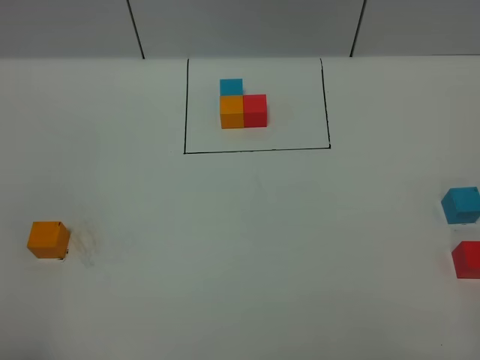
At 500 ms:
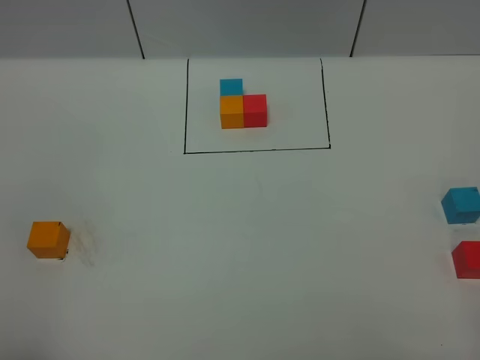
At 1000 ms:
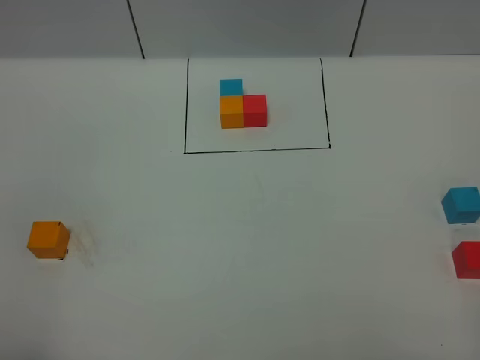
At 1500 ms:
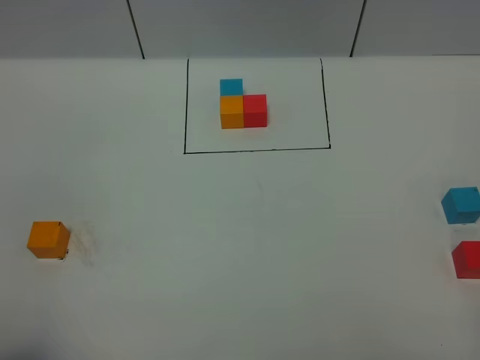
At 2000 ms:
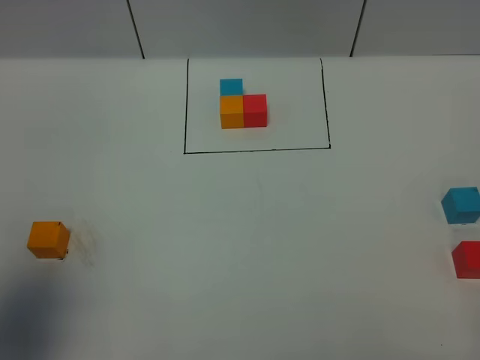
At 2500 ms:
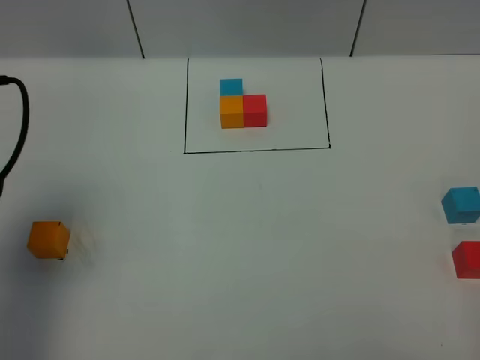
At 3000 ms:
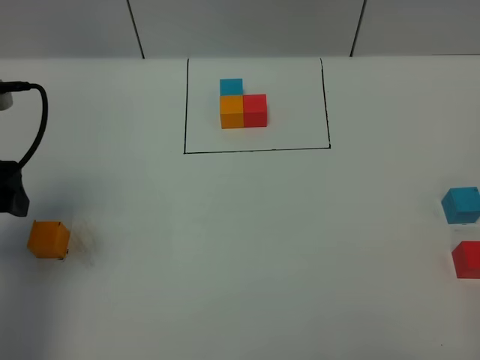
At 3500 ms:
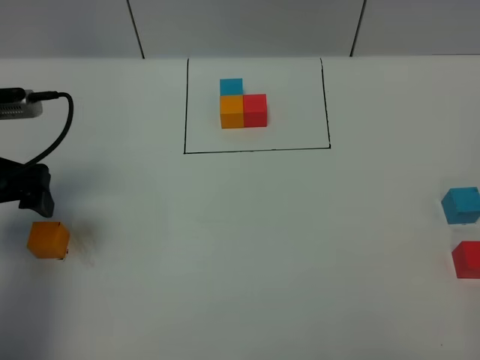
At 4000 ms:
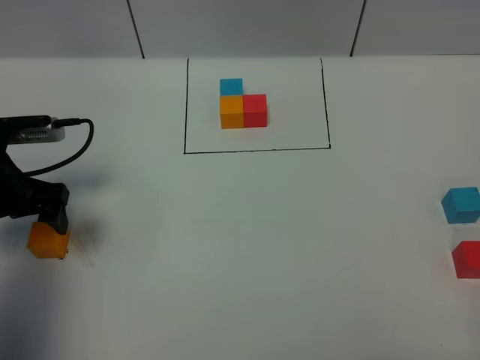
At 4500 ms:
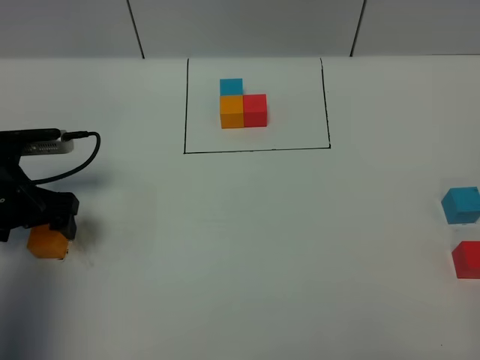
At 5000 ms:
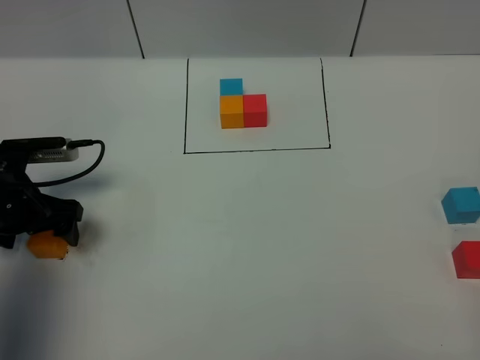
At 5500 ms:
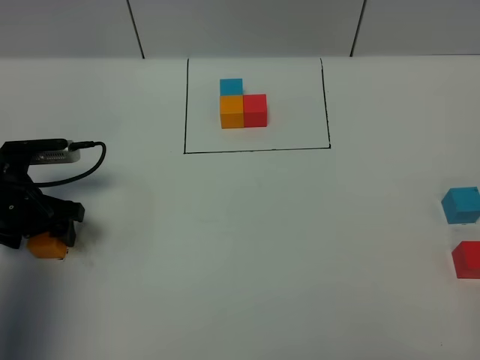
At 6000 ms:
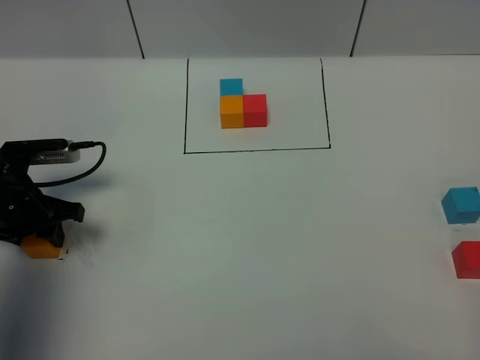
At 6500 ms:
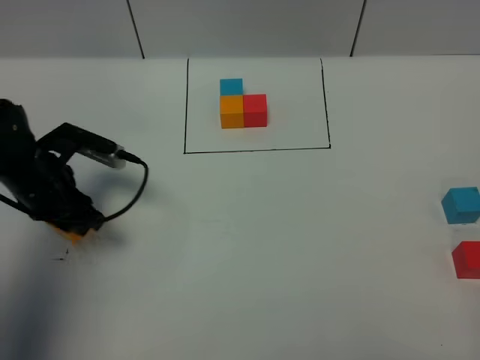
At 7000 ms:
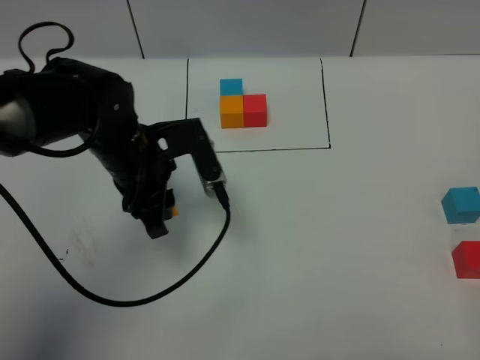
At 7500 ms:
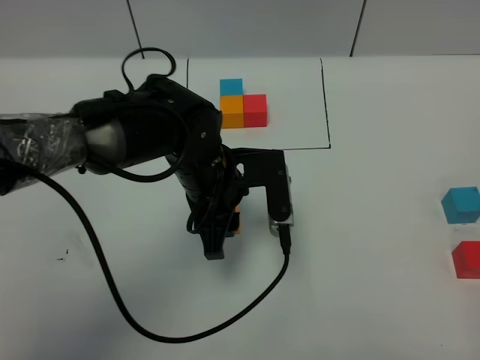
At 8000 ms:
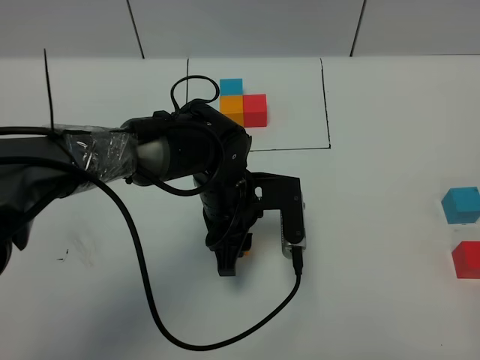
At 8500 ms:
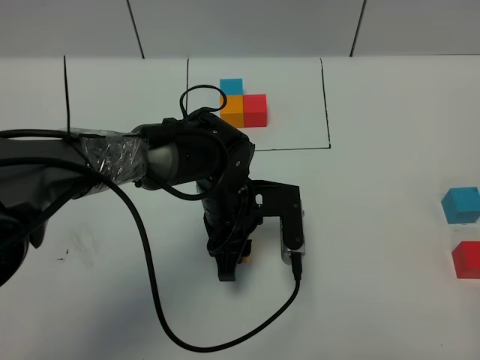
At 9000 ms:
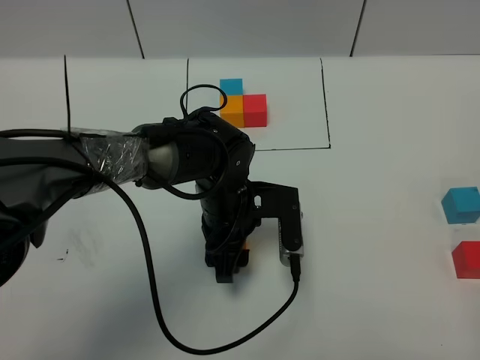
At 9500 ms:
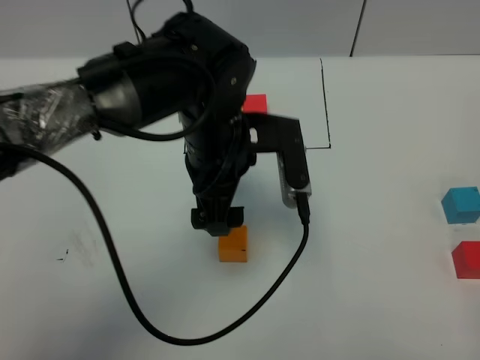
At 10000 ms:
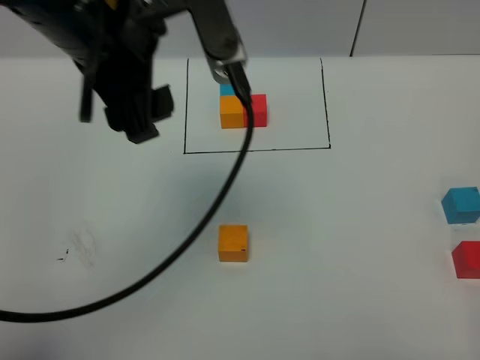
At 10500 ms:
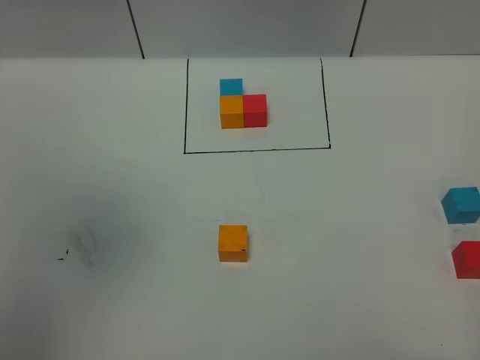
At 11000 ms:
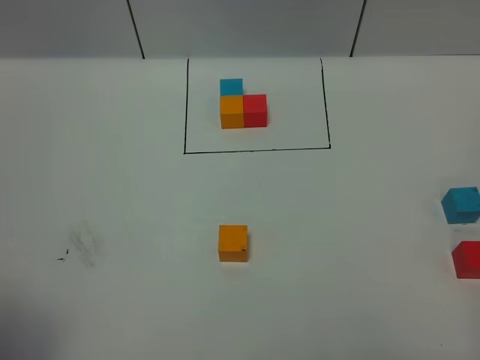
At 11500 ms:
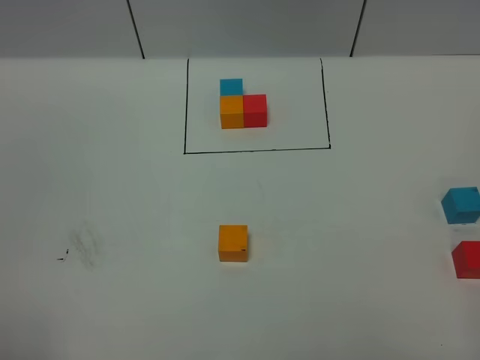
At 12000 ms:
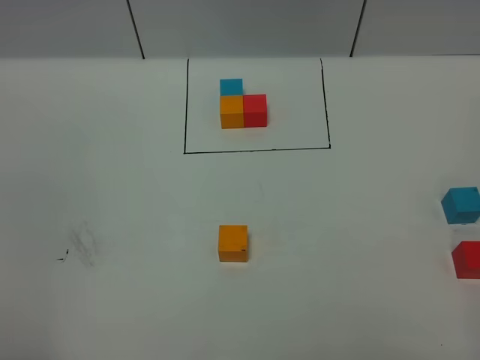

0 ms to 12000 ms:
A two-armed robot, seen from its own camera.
Task of the whole recording: According to the building block template in front, assemble the scattered blocks together.
Step, 2500 ms to 9000 ms: Put the orange cube in the center of the table.
0 ms to 2000 ms: The left gripper is displaced forward by some 10 cm.
2000 ms to 4000 ms: The left gripper travels forward and downward by approximately 25 cm, and opens.
4000 ms to 6000 ms: The left gripper goes about 5 cm downward, and closes its fingers.
6000 ms to 8000 ms: The left gripper is displaced to the right by roughly 30 cm.
8000 ms to 10000 ms: The left gripper shifts roughly 30 cm upward.
10000 ms to 12000 ms: The left gripper heads backward and to the left, covering approximately 35 cm.

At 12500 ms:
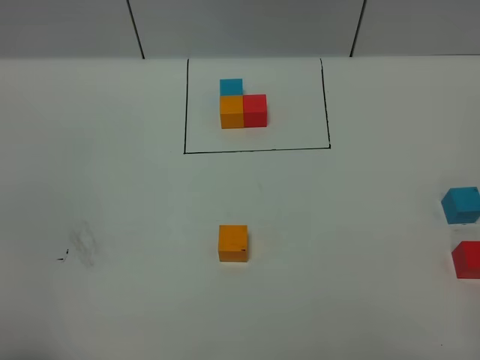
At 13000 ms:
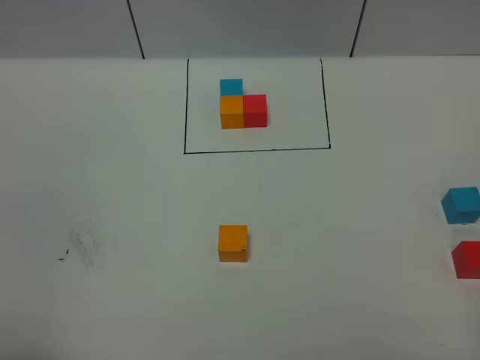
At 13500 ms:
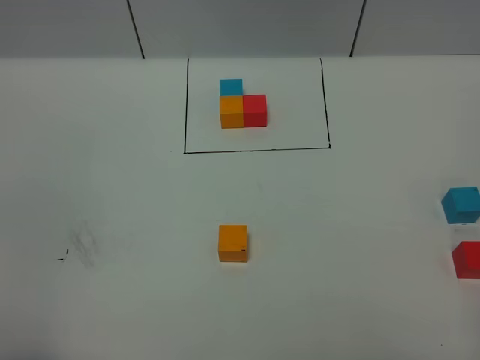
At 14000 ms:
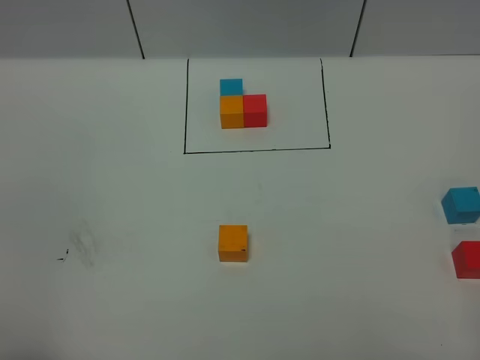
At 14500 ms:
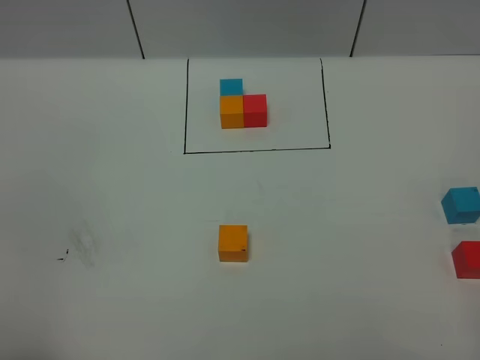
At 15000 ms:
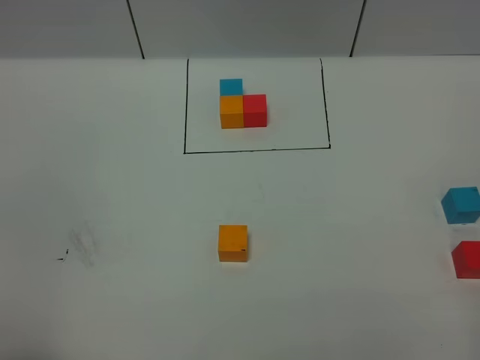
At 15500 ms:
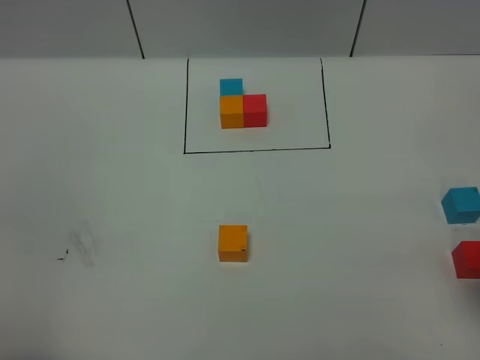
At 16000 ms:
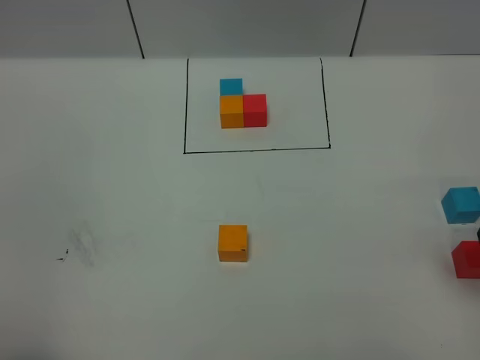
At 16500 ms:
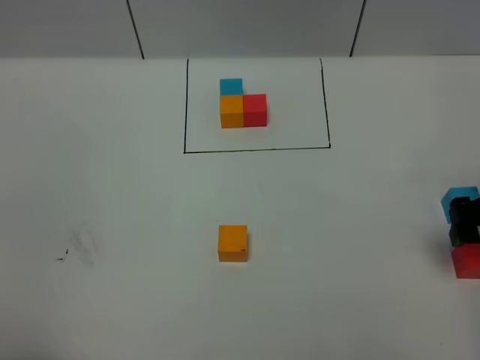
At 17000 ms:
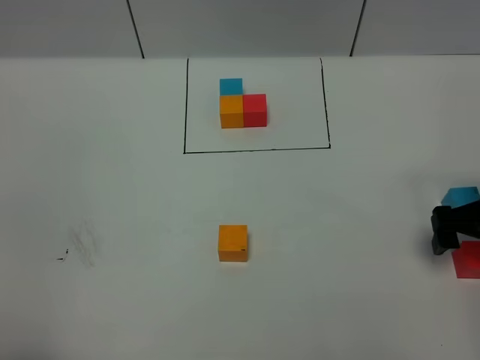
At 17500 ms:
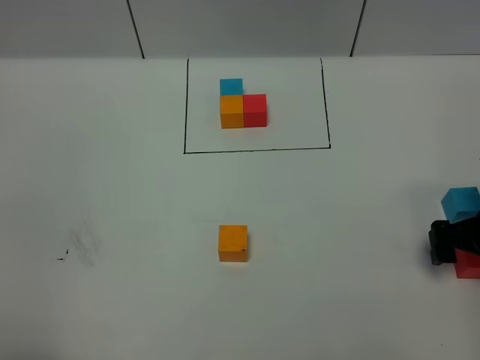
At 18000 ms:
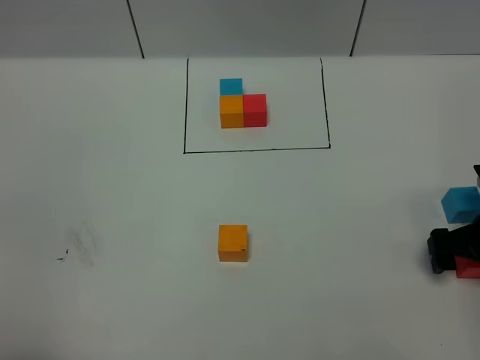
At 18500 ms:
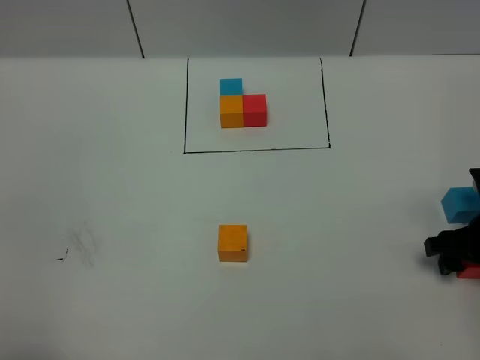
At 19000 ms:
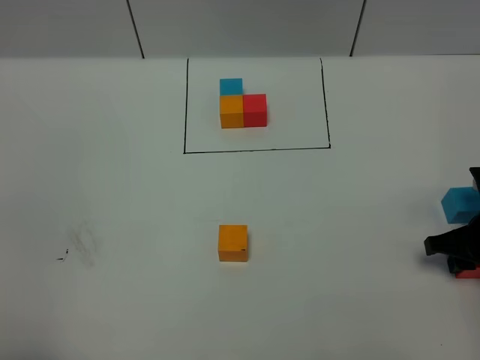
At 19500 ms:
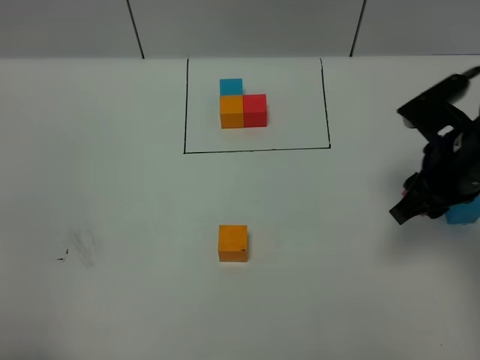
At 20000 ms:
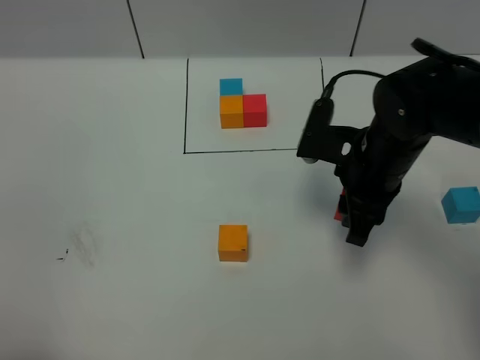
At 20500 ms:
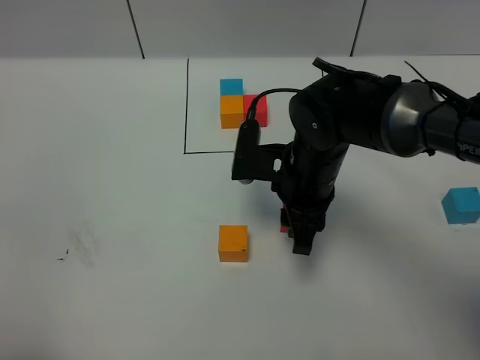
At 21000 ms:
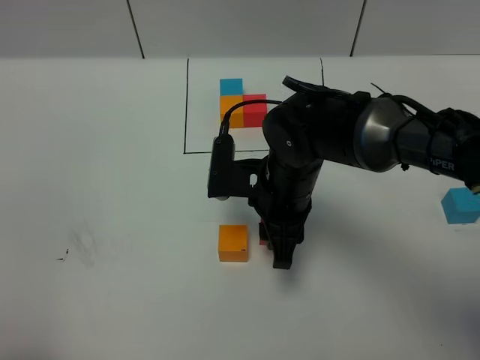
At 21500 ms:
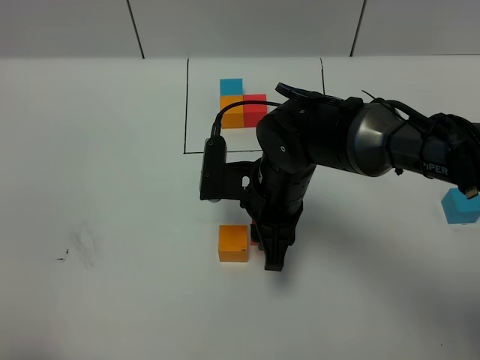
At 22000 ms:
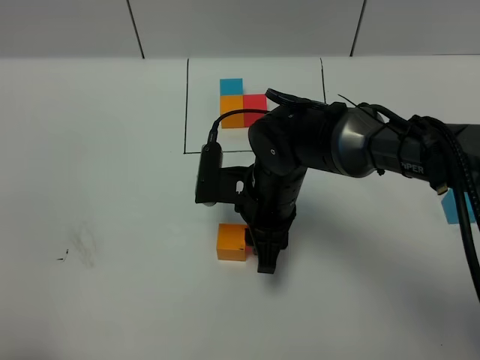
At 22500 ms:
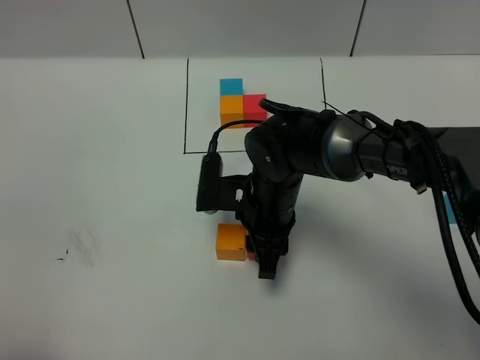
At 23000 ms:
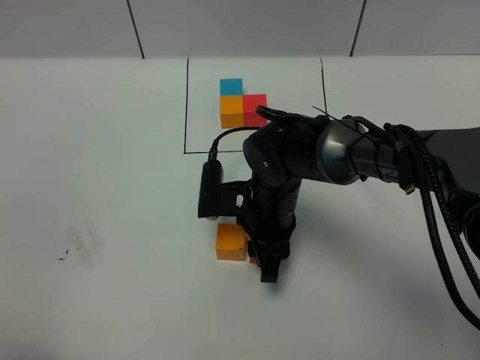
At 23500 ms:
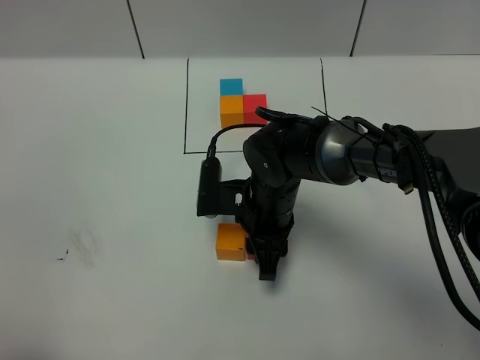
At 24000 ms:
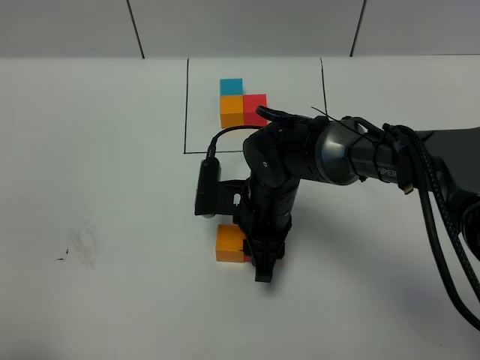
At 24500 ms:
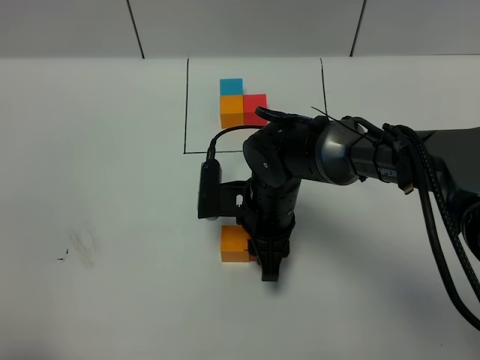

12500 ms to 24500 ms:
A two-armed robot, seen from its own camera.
Task of the whole recording: According to the building block template in front, assemble the scattered blocks together.
12500 ms to 14500 ms: Neither gripper changes place.
14500 ms to 16500 ms: The right gripper is displaced forward by some 25 cm, and opens.
16500 ms to 18500 ms: The right gripper shifts about 10 cm downward, and closes.
18500 ms to 20500 ms: The right gripper is displaced to the left by approximately 25 cm.
20500 ms to 22500 ms: The right gripper shifts by some 5 cm.
22500 ms to 24500 ms: Both grippers stay put.

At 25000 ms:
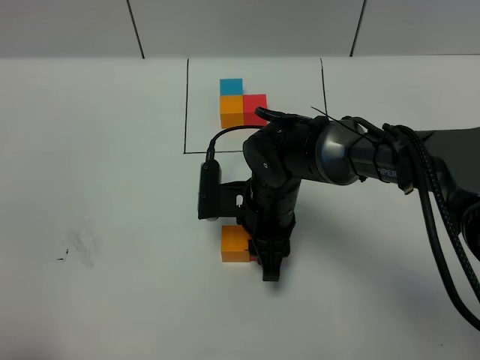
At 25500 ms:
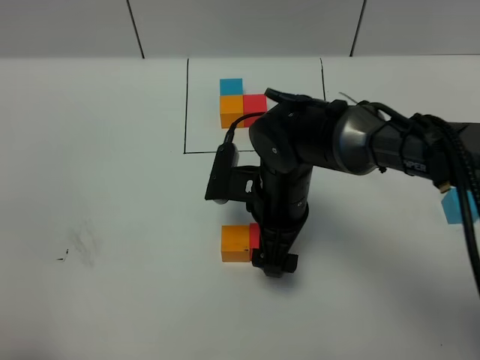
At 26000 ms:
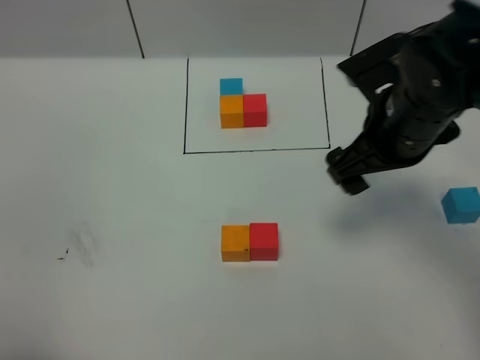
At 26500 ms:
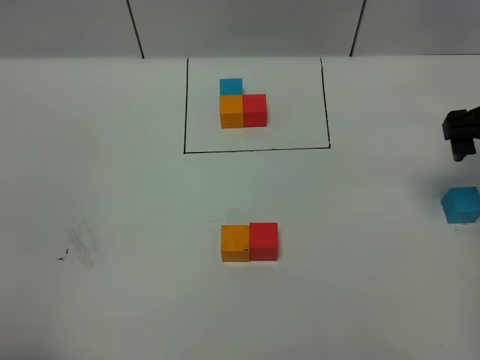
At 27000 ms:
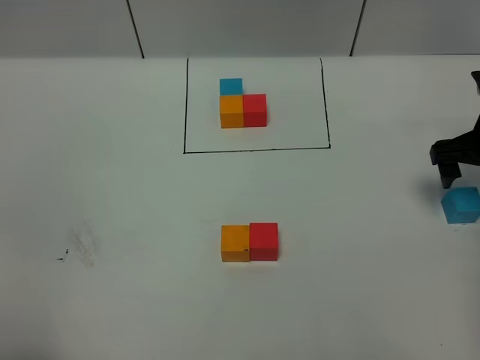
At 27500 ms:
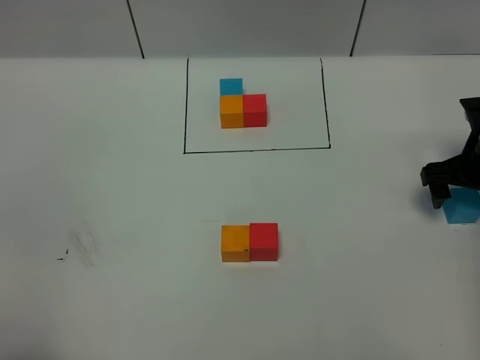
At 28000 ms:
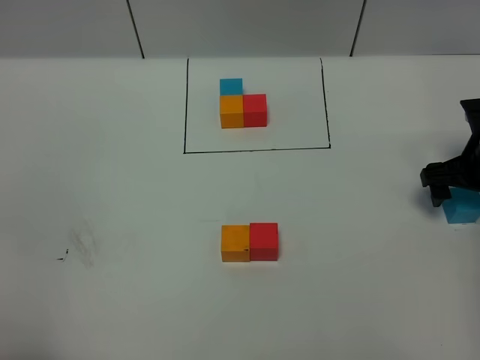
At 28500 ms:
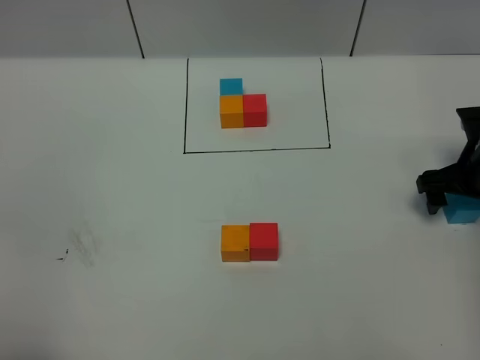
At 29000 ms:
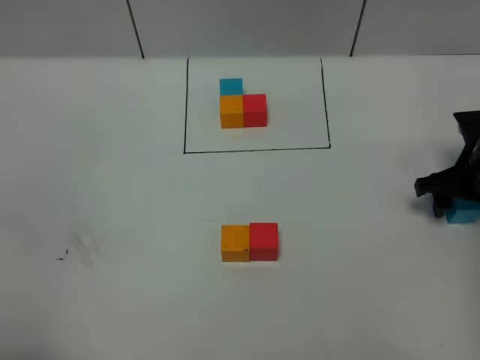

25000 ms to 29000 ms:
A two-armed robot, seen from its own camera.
Task of the whole recording: According to the building block template in front, assemble the scattered blocks together.
25000 ms to 27000 ms: The right gripper is displaced to the right by approximately 30 cm, and opens.
27000 ms to 29000 ms: The right gripper heads downward, covering approximately 5 cm.
